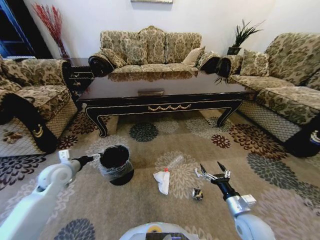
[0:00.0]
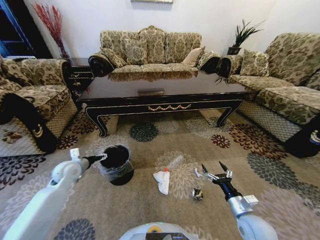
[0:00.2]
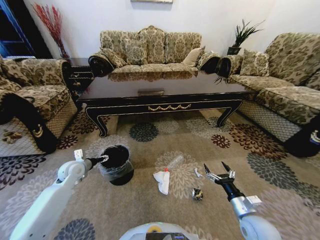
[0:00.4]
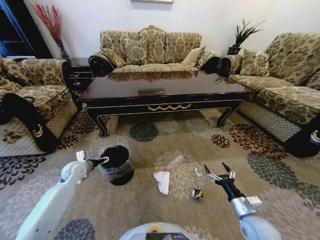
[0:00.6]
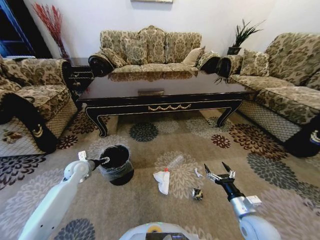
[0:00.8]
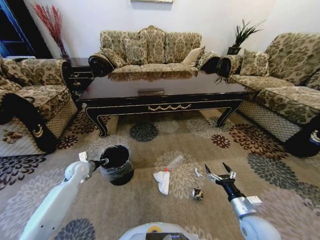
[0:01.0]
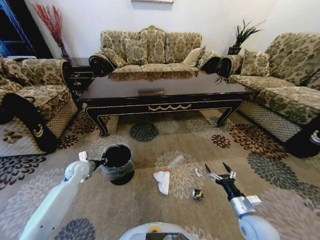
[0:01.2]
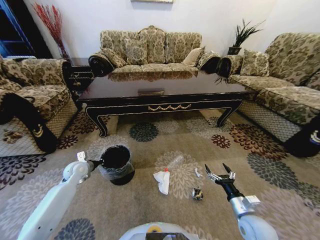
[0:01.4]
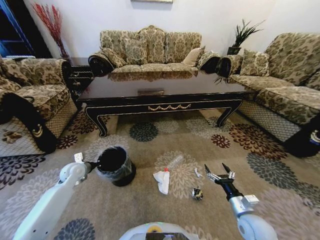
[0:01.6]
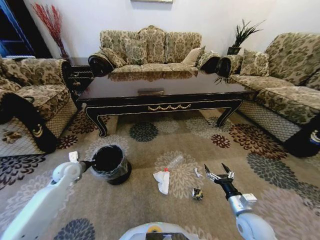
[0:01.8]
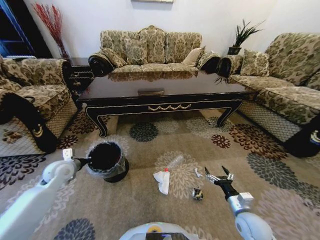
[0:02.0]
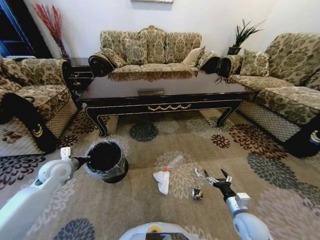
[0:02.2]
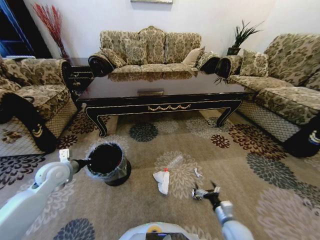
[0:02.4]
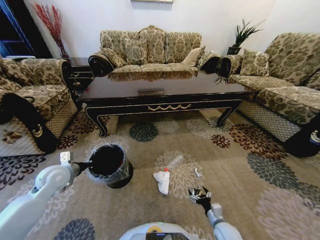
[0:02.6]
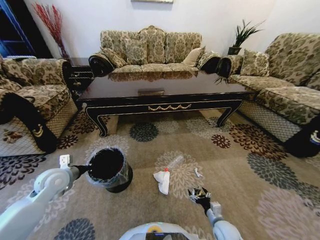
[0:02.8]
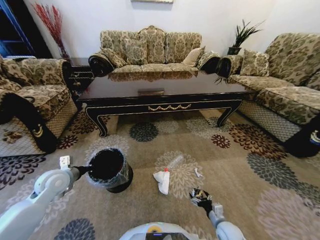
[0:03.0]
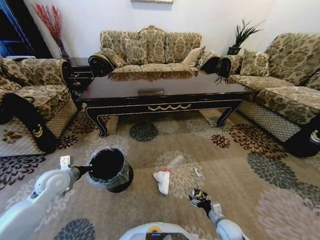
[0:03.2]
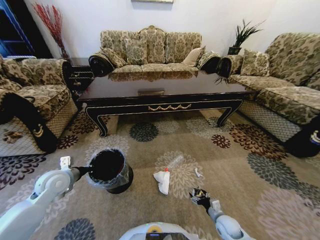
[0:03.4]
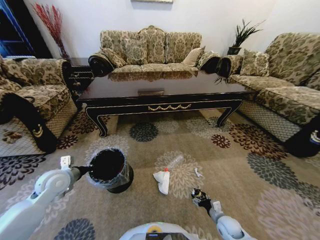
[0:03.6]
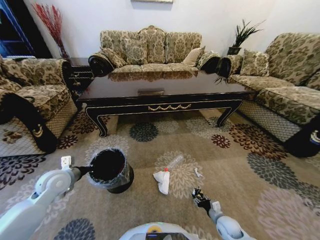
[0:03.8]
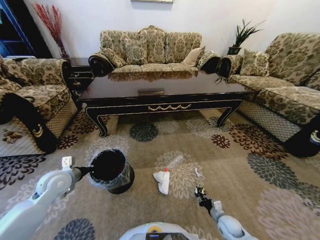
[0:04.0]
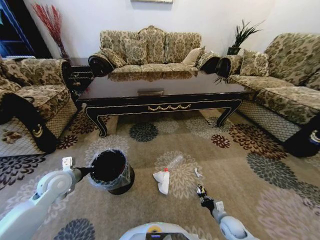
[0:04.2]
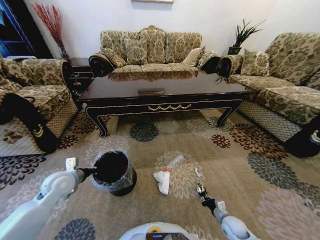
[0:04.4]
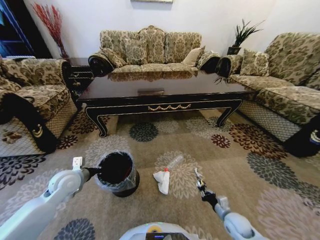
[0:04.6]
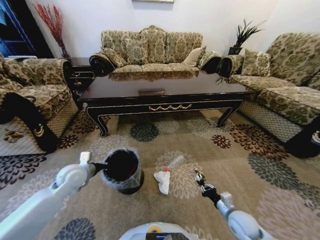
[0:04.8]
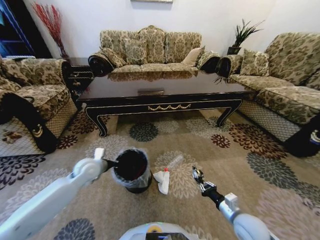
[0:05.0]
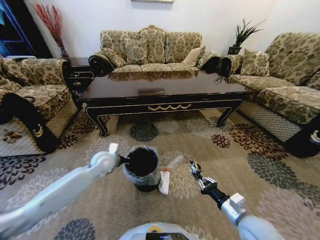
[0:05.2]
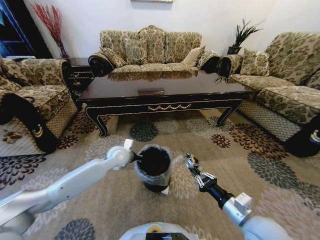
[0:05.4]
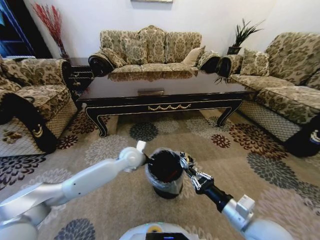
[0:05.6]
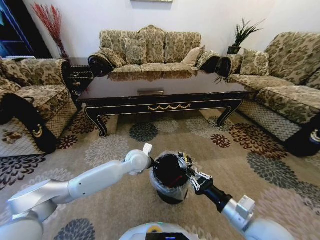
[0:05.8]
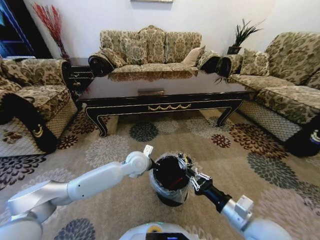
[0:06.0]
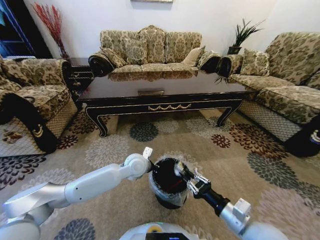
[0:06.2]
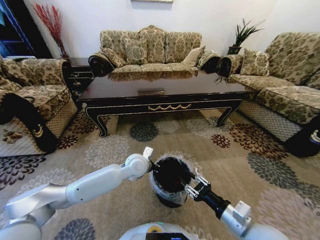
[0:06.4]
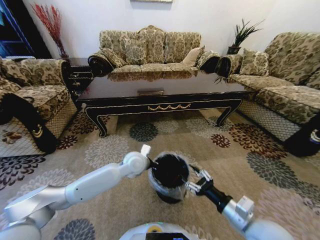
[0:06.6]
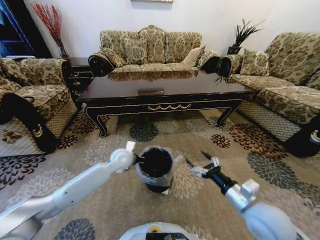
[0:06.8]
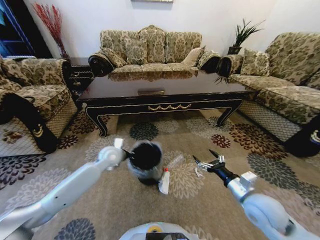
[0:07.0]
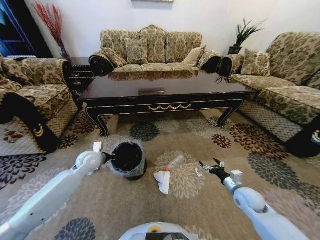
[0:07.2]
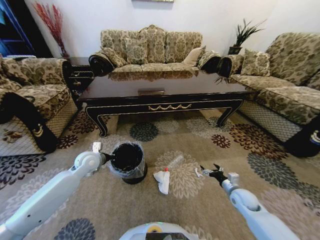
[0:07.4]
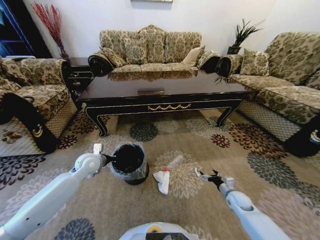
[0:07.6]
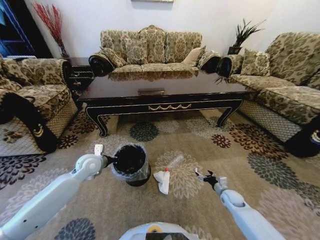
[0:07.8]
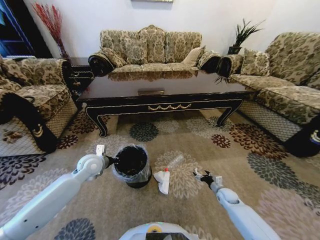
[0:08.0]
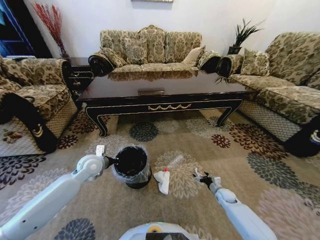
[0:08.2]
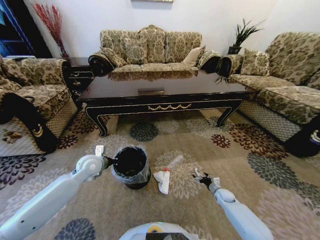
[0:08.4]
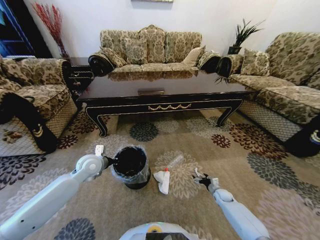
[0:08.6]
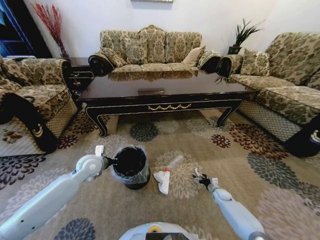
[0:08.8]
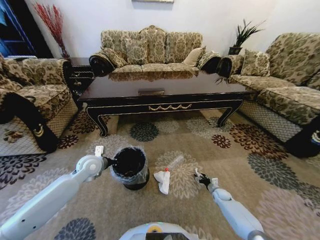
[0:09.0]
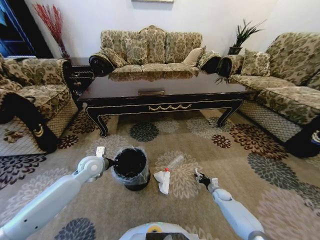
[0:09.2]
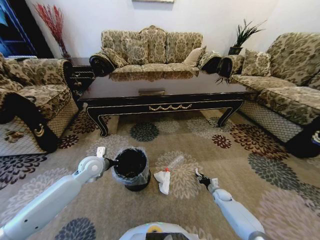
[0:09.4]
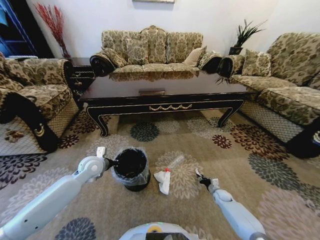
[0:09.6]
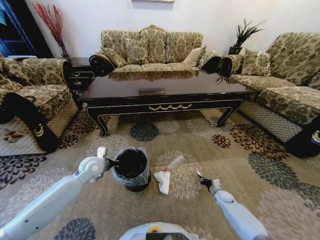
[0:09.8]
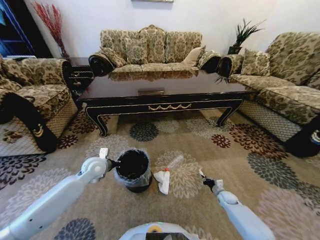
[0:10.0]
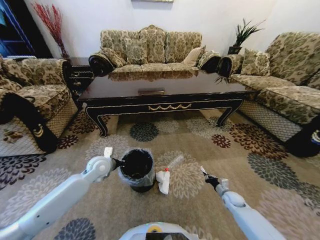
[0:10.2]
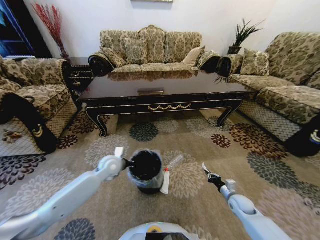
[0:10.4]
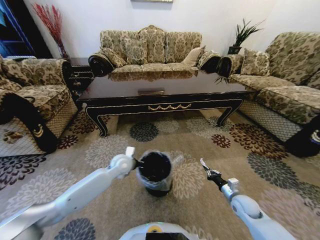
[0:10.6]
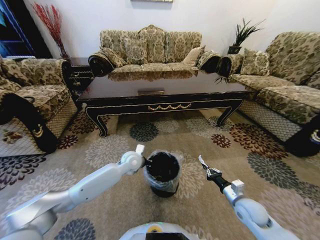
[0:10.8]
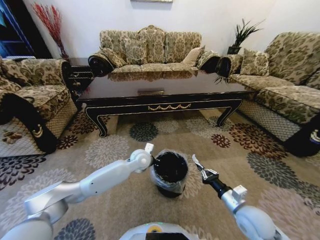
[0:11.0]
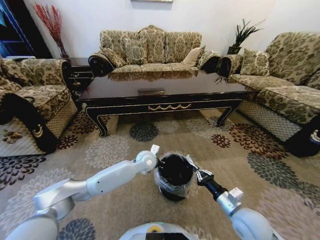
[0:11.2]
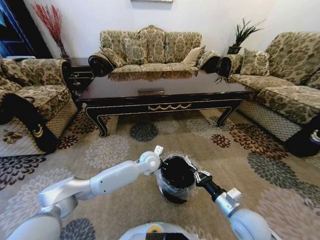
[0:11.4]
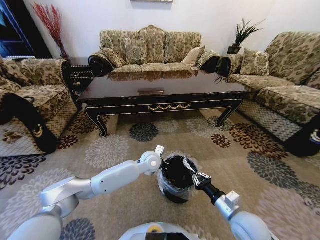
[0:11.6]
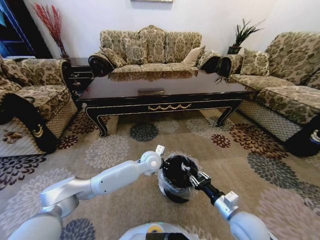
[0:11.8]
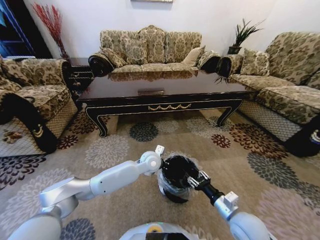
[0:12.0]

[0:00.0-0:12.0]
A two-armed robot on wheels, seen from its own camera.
Task of the whole recording: Move to the front of the table and pick up the trash from the floor, then place it into the trash bin.
0:00.0 to 0:01.6: The left gripper shifts some 10 cm downward and forward, and closes.
0:01.6 to 0:03.0: The right gripper goes roughly 15 cm downward. Meanwhile the left gripper is displaced backward and upward by about 10 cm.
0:03.0 to 0:04.4: The right gripper ends up roughly 5 cm from where it was, and closes its fingers.
0:04.4 to 0:06.0: The left gripper is displaced to the right by some 30 cm. The right gripper goes approximately 30 cm upward.
0:06.0 to 0:07.6: The right gripper travels downward, forward and to the right by roughly 30 cm, and opens its fingers. Meanwhile the left gripper is displaced to the left by about 20 cm.
0:07.6 to 0:09.0: The right gripper is displaced downward and forward by some 15 cm.
0:09.0 to 0:10.4: The right gripper moves upward and backward, about 15 cm, and closes up, while the left gripper heads to the right, covering roughly 10 cm.
0:10.4 to 0:12.0: The left gripper moves to the right, approximately 15 cm. Meanwhile the right gripper travels upward, to the left and backward by roughly 20 cm, and opens.

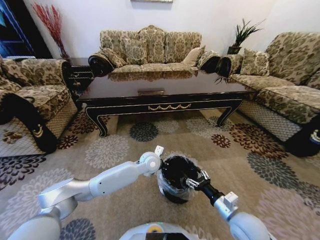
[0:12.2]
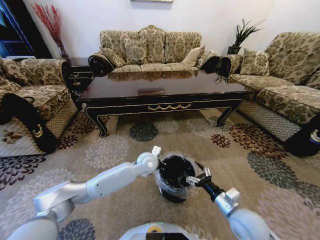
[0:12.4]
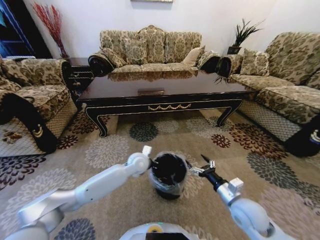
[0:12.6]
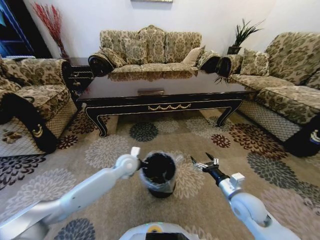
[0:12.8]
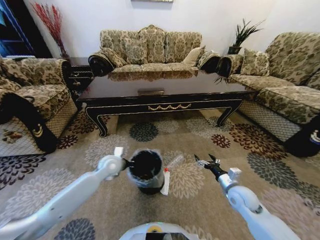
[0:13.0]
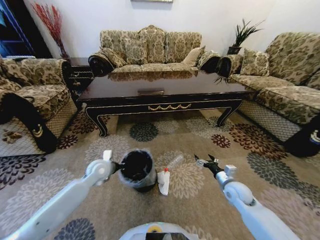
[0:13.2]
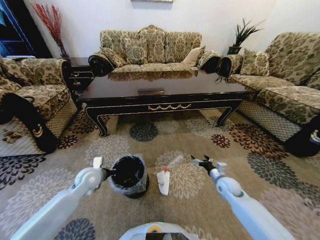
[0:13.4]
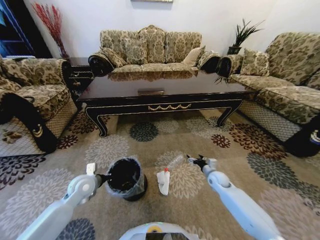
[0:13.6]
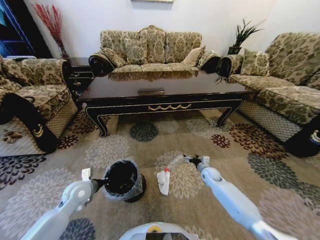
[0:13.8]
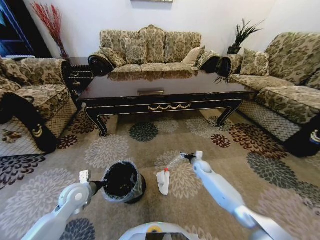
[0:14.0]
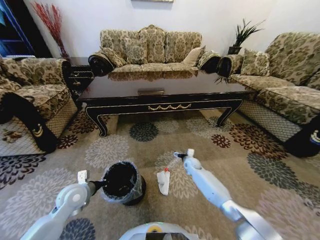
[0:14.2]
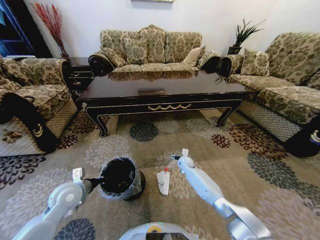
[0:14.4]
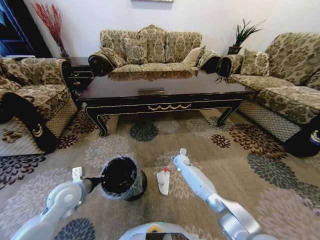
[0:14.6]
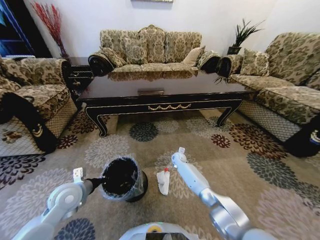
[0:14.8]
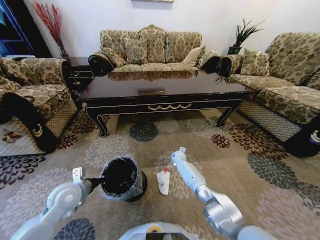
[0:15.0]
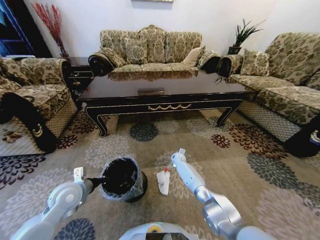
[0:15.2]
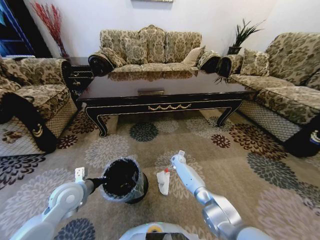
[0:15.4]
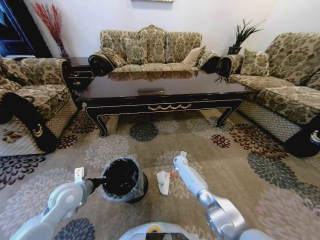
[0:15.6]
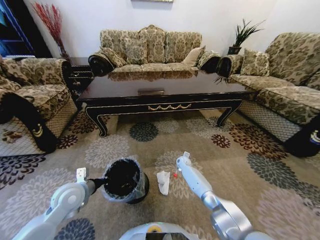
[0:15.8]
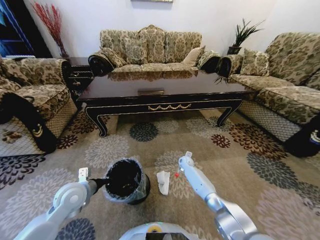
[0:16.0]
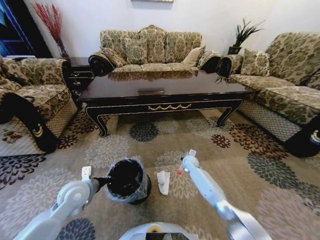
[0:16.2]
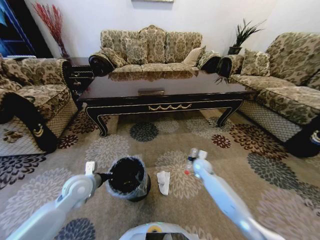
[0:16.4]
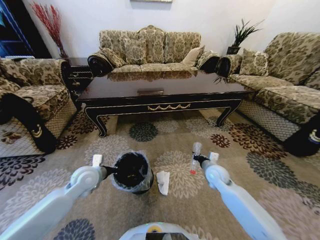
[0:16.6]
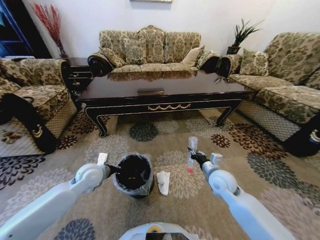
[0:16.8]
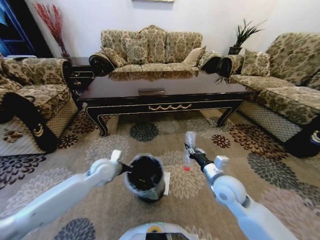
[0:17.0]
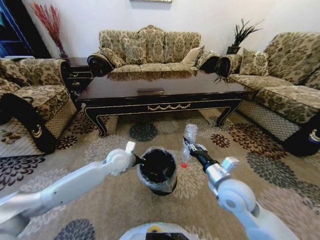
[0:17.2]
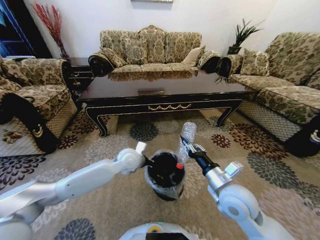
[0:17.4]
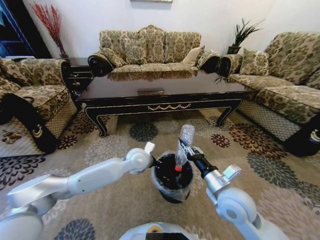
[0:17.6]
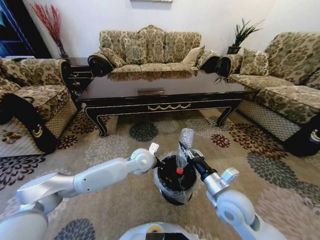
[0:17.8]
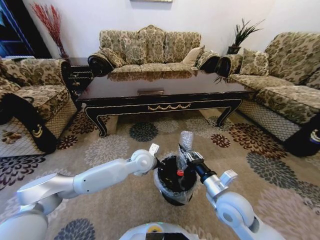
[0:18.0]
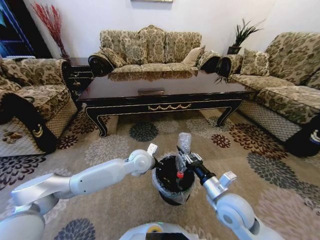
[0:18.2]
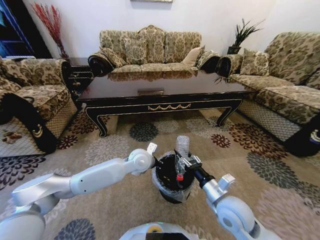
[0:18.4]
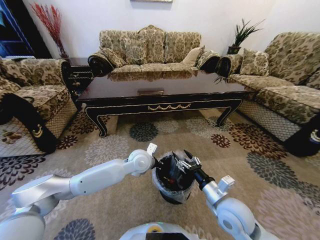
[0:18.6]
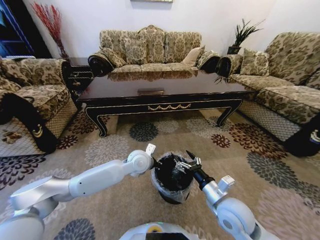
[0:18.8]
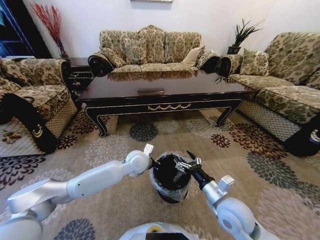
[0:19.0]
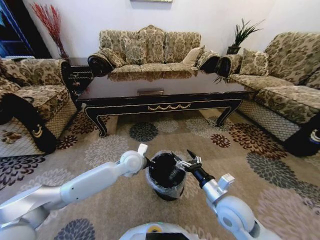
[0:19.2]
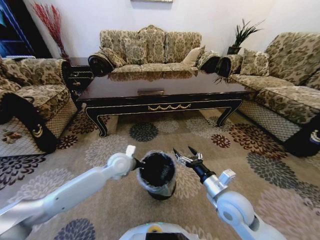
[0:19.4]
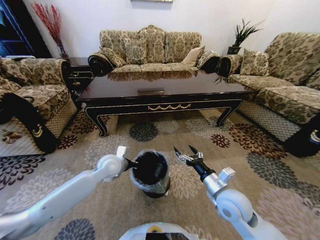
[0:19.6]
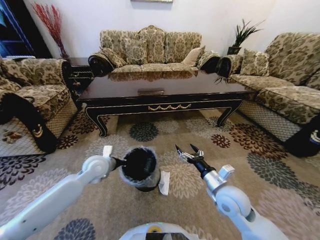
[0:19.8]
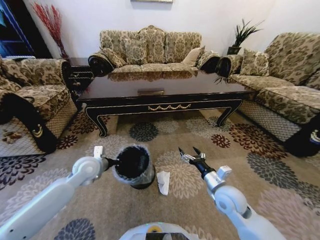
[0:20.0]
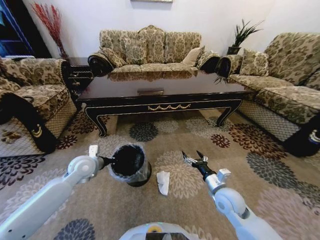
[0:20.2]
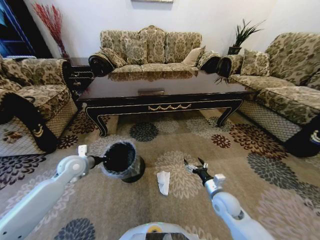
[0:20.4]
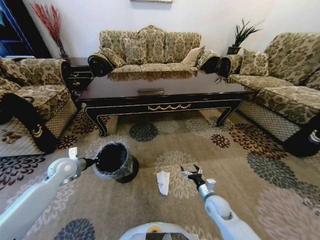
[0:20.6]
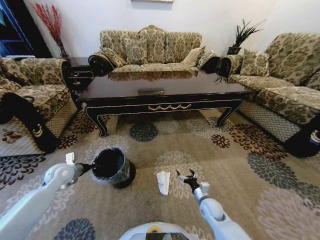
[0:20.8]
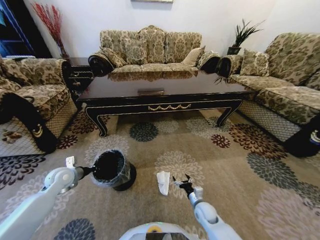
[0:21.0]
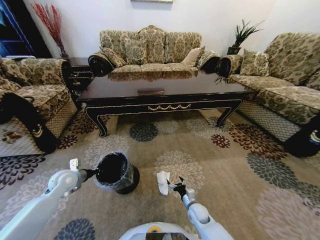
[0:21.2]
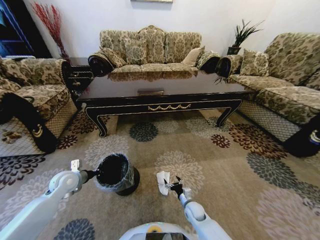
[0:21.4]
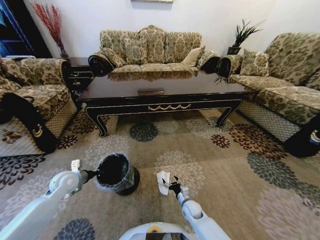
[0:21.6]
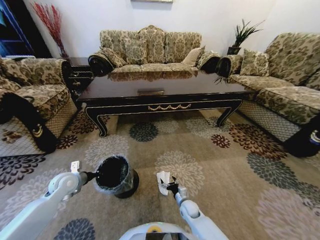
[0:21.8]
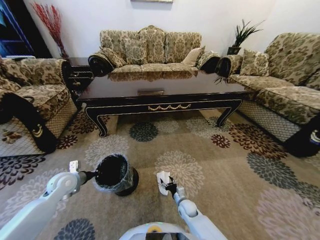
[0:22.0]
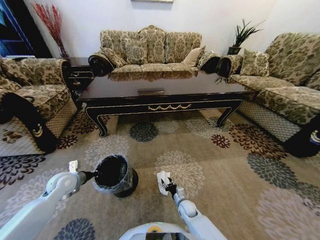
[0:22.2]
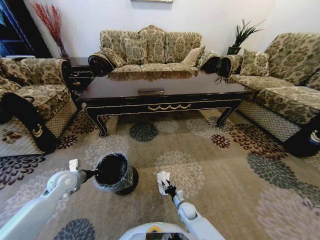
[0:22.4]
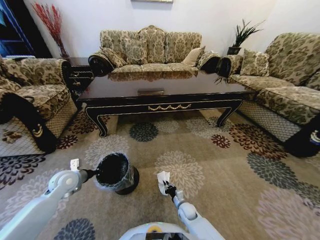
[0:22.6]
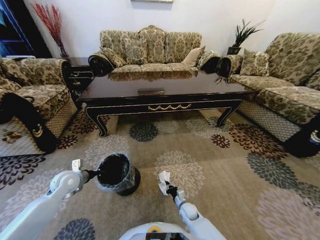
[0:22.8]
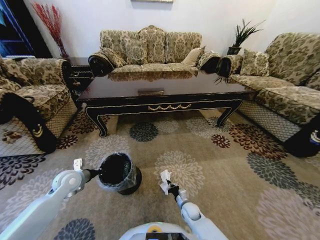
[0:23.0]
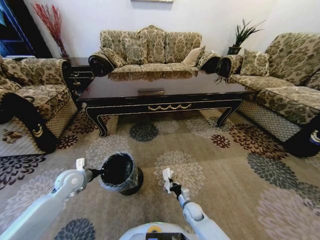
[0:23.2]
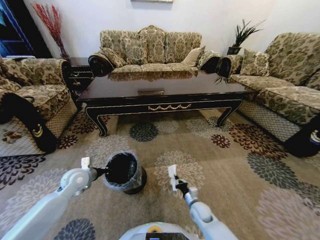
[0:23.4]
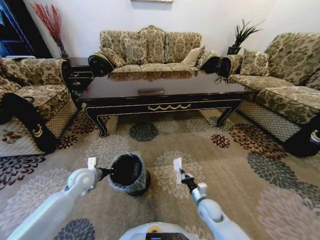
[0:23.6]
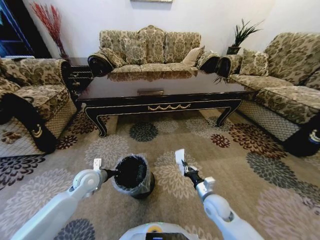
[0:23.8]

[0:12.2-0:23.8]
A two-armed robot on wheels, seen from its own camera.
Task of the whole recording: Move to the front of the table and pick up the trash from the floor, then place it into the trash bin.
0:12.2 to 0:13.6: The left gripper heads to the left, covering about 30 cm. Meanwhile the right gripper shifts some 25 cm forward and downward.
0:13.6 to 0:15.0: The left gripper shifts by roughly 5 cm. The right gripper goes roughly 25 cm to the left and forward.
0:15.0 to 0:16.6: The left gripper moves forward, some 5 cm, while the right gripper is displaced backward, upward and to the right by some 25 cm, and closes.
0:16.6 to 0:18.0: The left gripper travels to the right by some 20 cm; the right gripper travels backward and upward by some 15 cm.
0:18.0 to 0:19.4: The right gripper opens its fingers. Meanwhile the left gripper travels to the left by some 10 cm.
0:19.4 to 0:21.0: The right gripper heads downward, covering approximately 25 cm. Meanwhile the left gripper heads to the left, covering about 25 cm.
0:21.0 to 0:22.4: The right gripper travels downward and to the left by about 10 cm, and closes.
0:22.4 to 0:23.8: The left gripper goes approximately 10 cm to the right; the right gripper goes about 20 cm upward and to the right, and closes its fingers.
